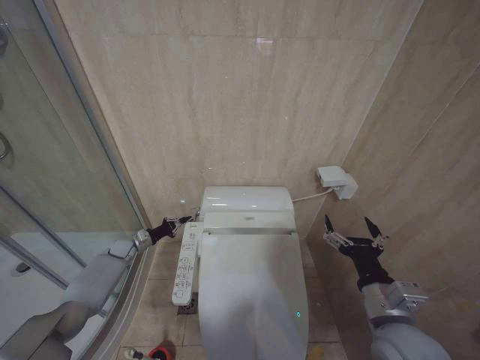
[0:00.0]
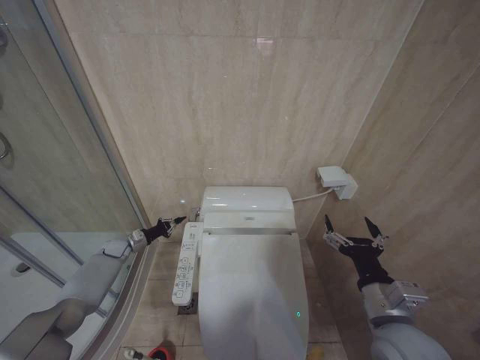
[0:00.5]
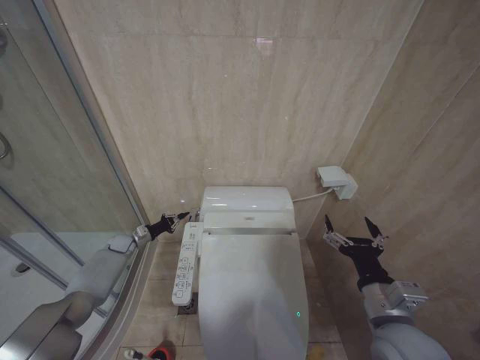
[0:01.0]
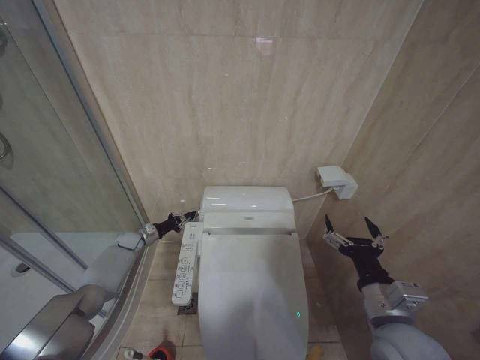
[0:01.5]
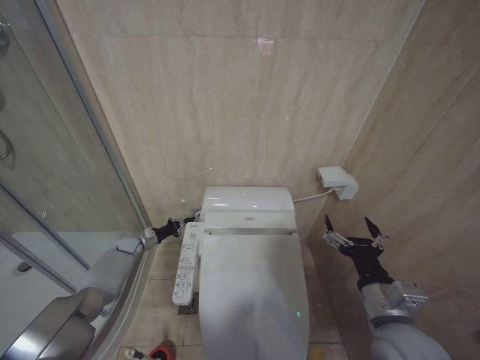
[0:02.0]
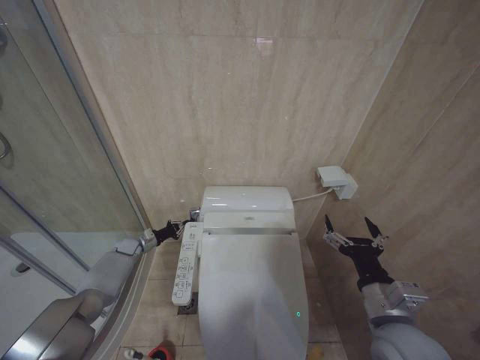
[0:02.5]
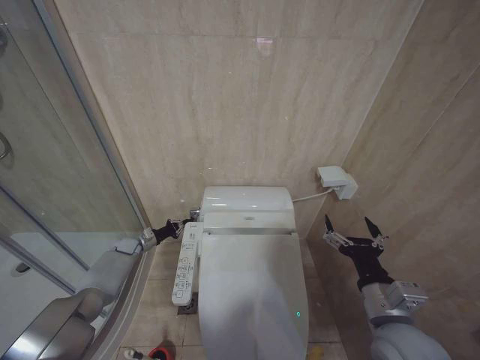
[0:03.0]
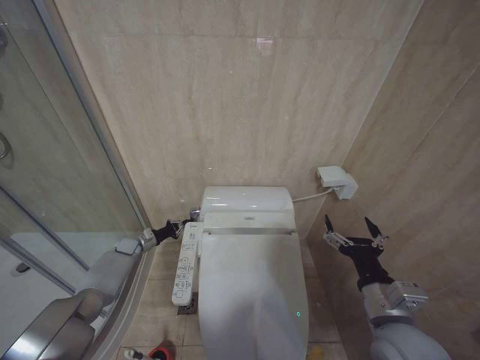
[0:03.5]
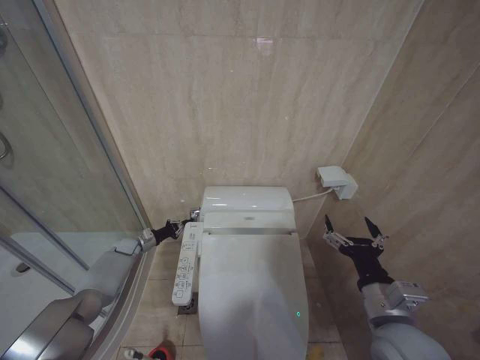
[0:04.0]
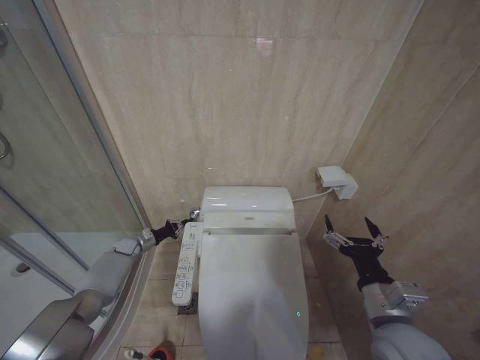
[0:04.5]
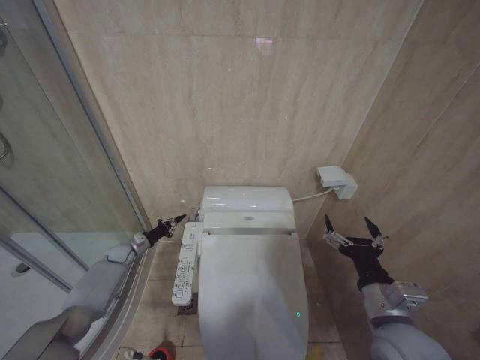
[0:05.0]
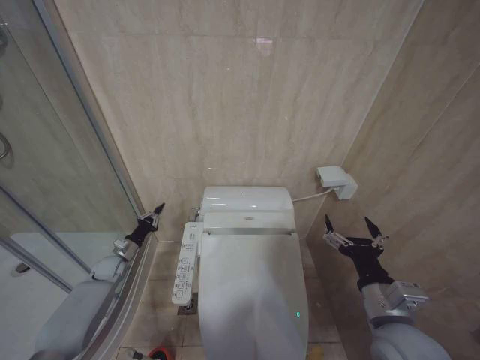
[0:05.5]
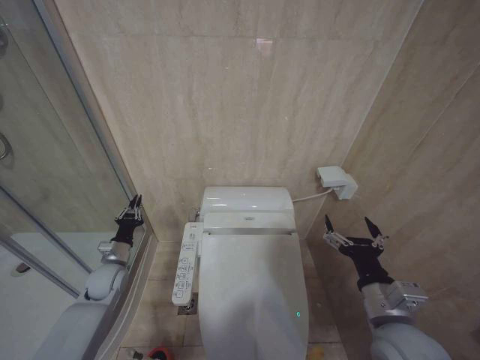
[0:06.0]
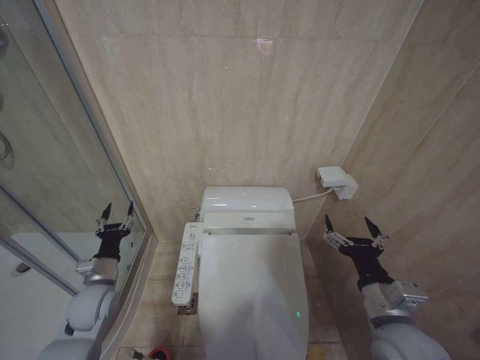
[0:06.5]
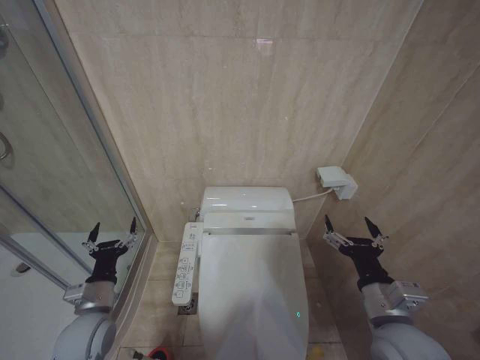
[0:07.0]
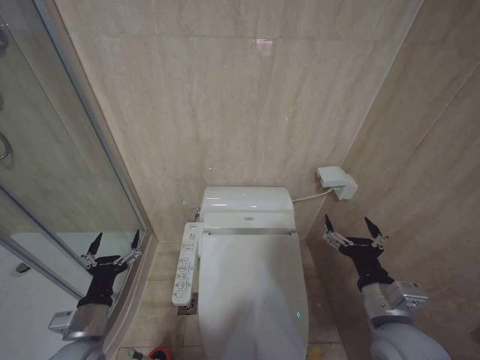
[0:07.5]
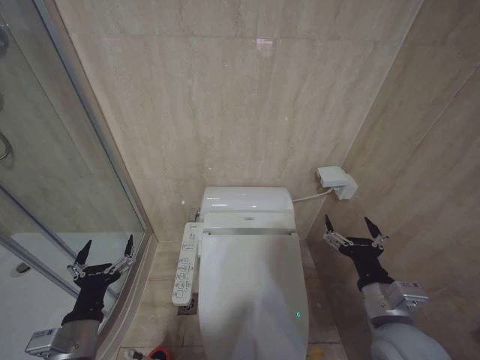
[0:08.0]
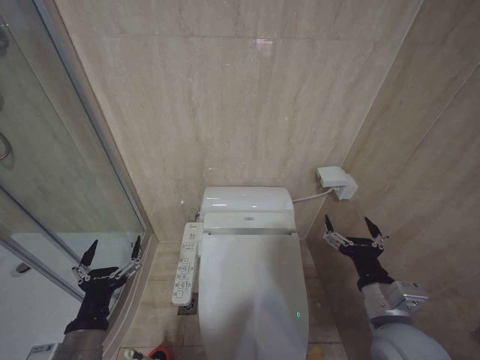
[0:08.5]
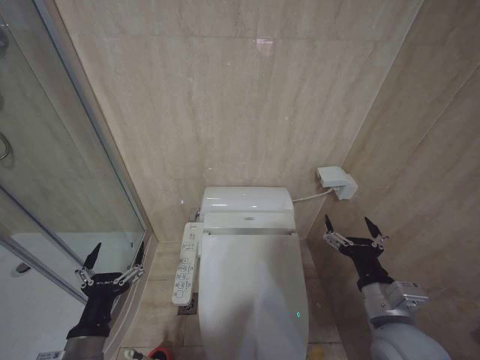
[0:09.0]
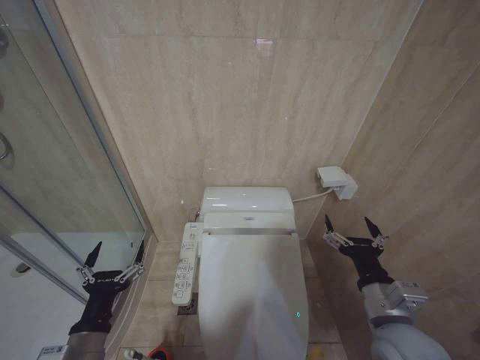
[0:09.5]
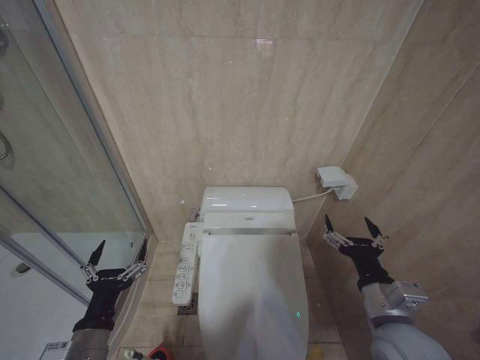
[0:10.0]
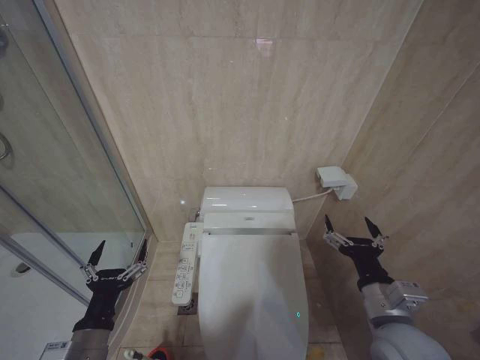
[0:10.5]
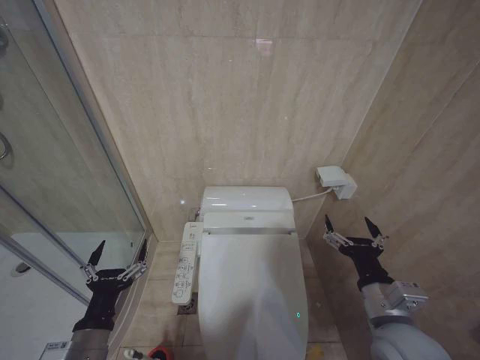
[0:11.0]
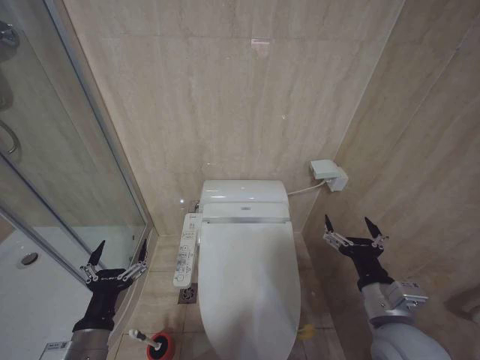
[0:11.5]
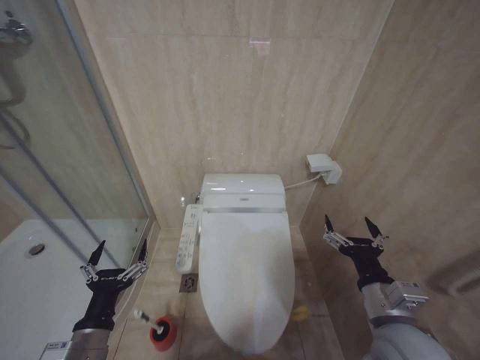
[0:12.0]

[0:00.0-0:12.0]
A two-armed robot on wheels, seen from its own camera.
Task of the whole recording: Open the toilet lid, clean the toilet bowl with a toilet brush, close the toilet lid, and flush.
0:00.0 to 0:02.0: The grippers move only a little.
0:04.0 to 0:06.0: The left gripper travels backward and upward by roughly 15 cm.
0:06.0 to 0:08.0: The left gripper moves backward, approximately 25 cm, and opens its fingers.
0:08.0 to 0:10.0: The grippers stay close to where they were, moving slightly.
0:10.0 to 0:12.0: The two grippers keep their place.

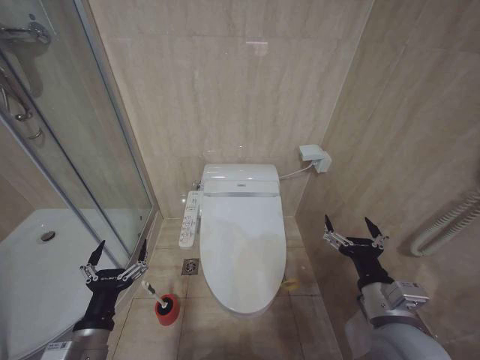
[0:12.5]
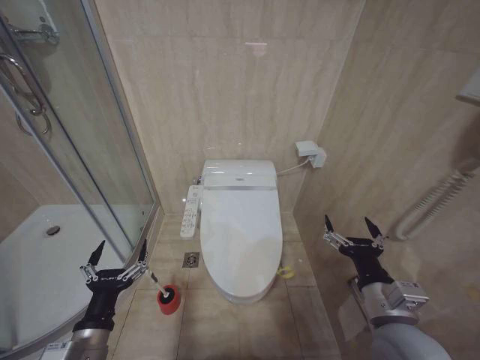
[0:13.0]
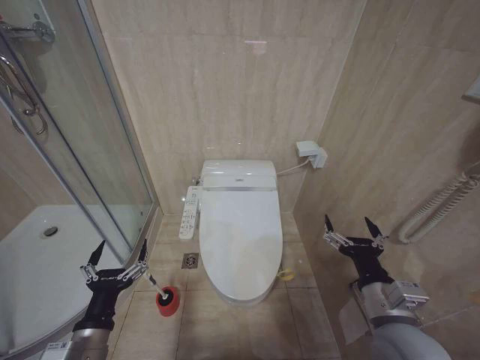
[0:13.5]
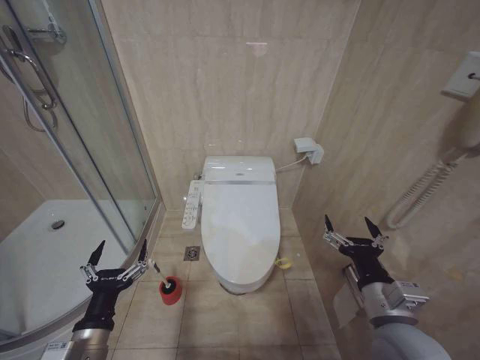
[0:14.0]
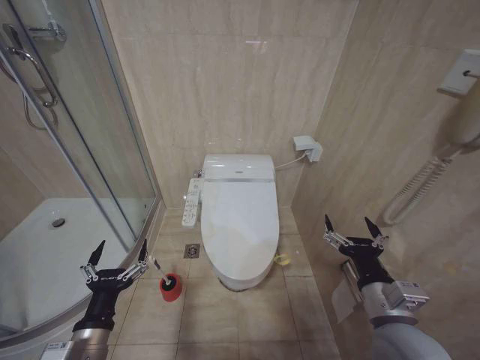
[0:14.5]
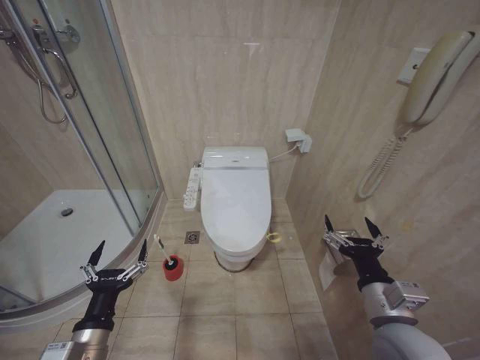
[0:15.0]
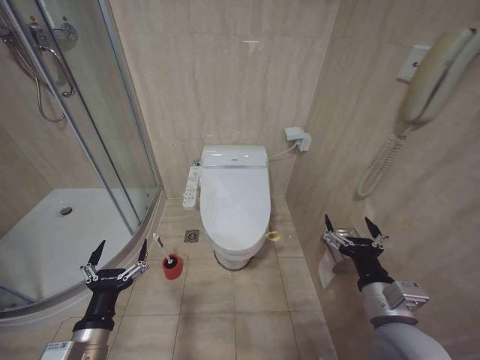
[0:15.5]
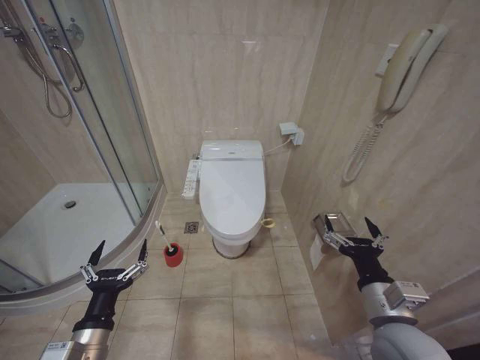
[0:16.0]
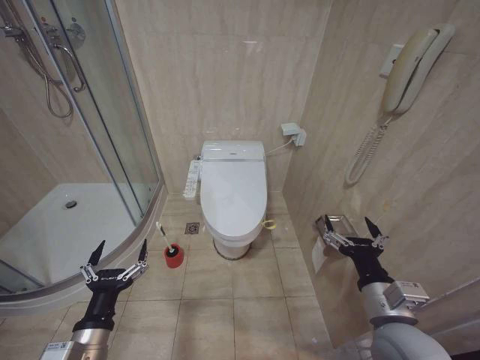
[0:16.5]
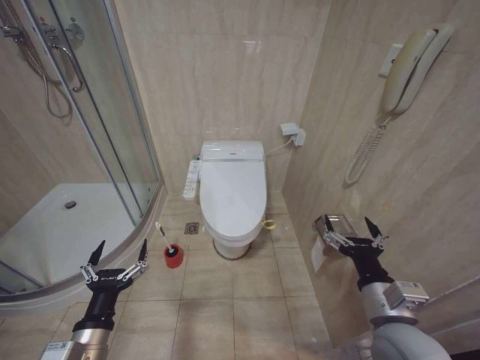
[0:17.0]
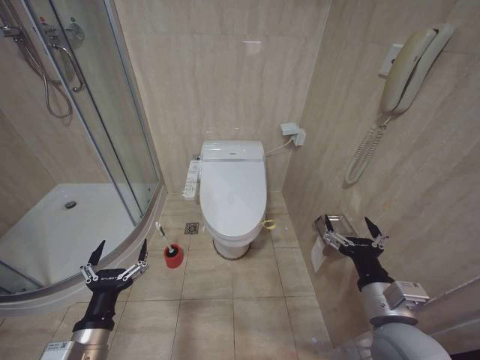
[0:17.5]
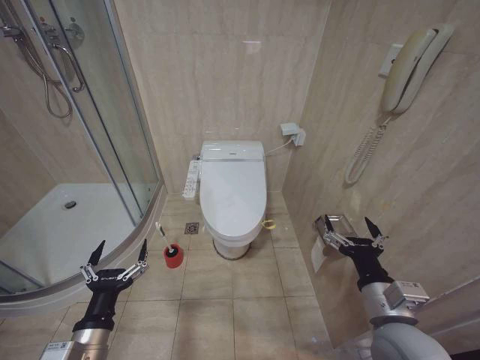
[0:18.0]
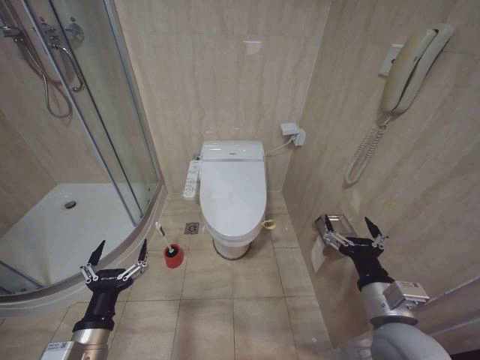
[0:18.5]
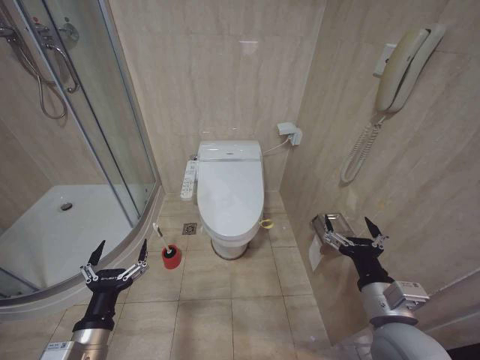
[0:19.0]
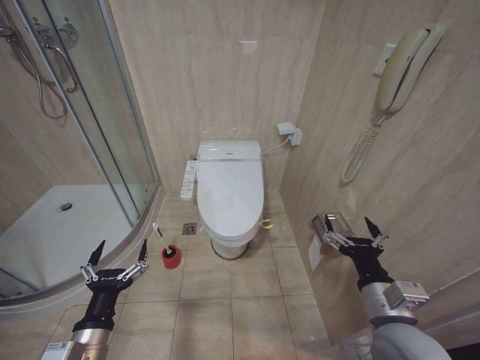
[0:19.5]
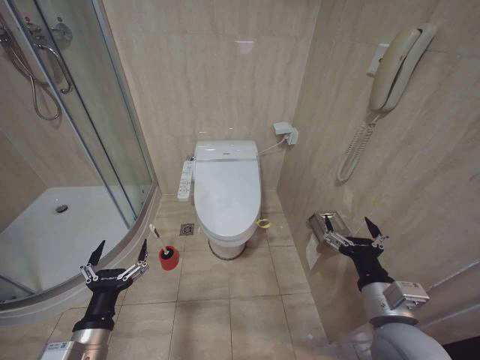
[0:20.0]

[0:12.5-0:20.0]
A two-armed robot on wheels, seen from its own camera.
Task of the whole recording: Open the toilet lid, clean the toilet bowl with a toilet brush, close the toilet lid, and flush.
0:12.5 to 0:14.5: Neither gripper changes place.
0:16.5 to 0:20.0: Both grippers stay about where they are.
